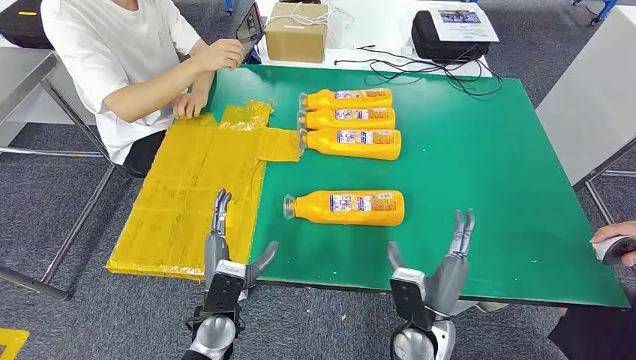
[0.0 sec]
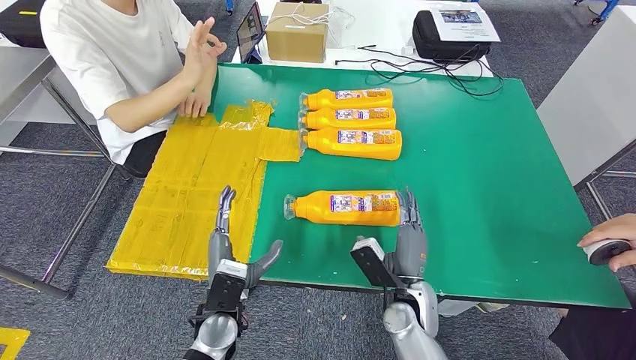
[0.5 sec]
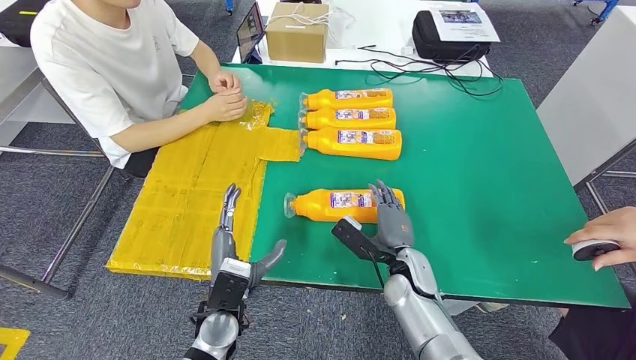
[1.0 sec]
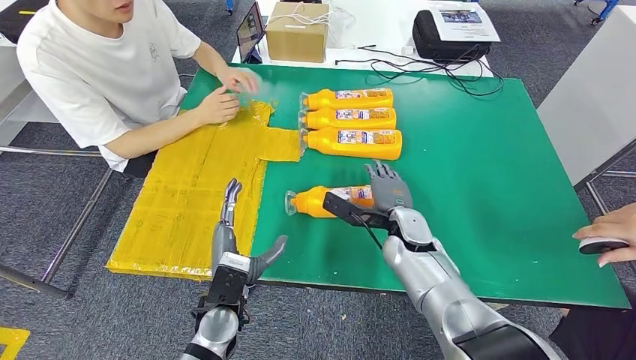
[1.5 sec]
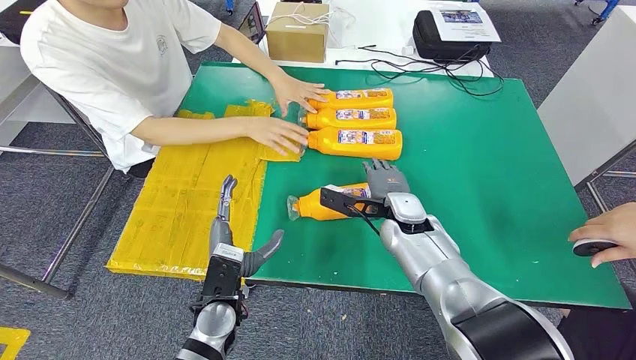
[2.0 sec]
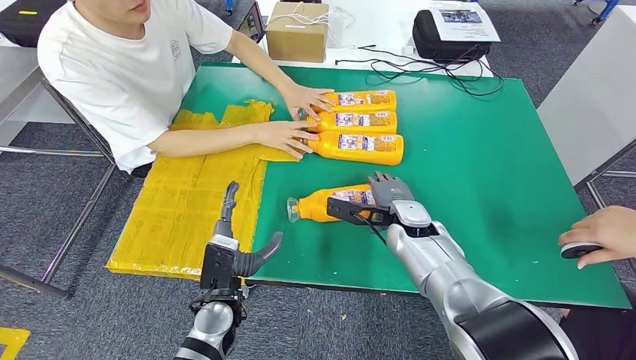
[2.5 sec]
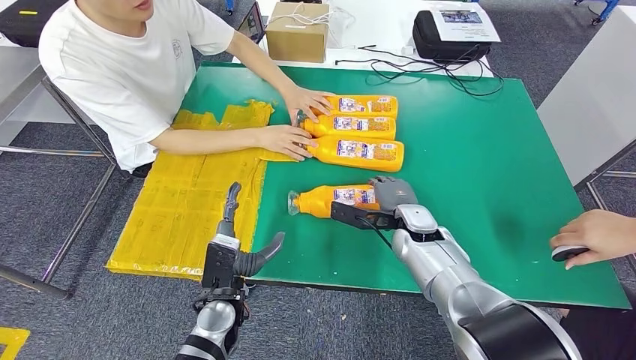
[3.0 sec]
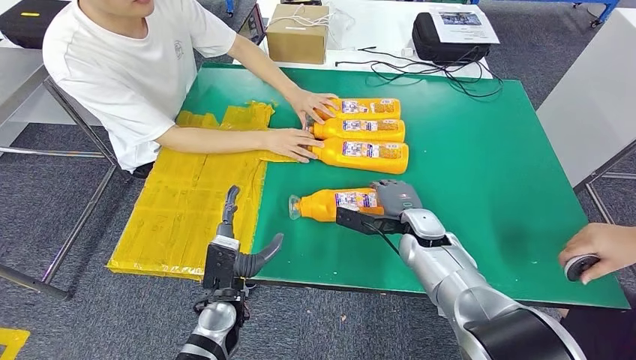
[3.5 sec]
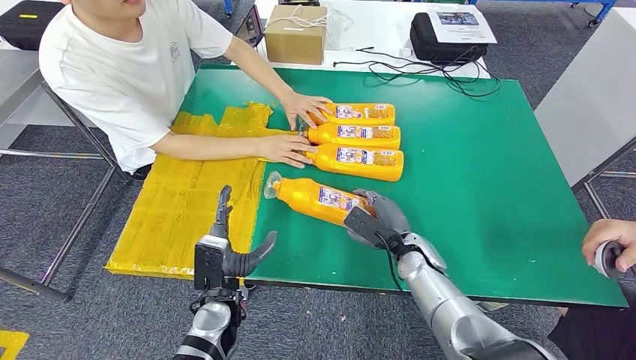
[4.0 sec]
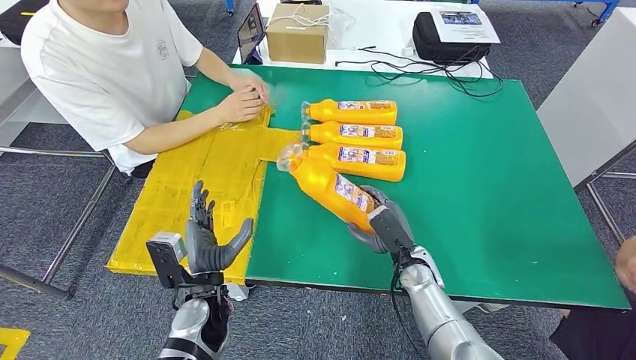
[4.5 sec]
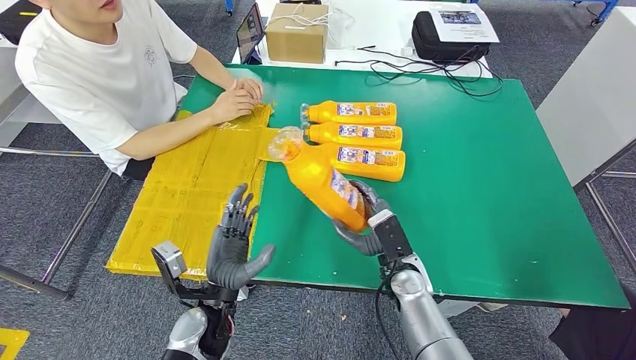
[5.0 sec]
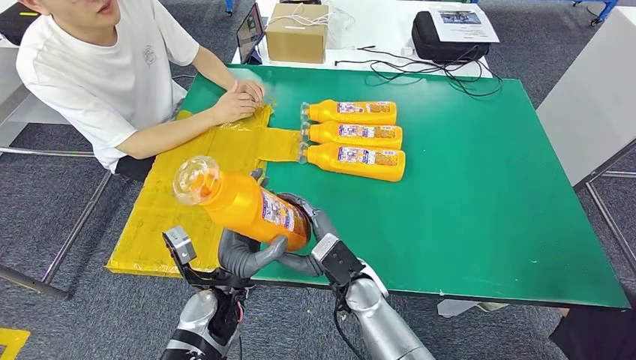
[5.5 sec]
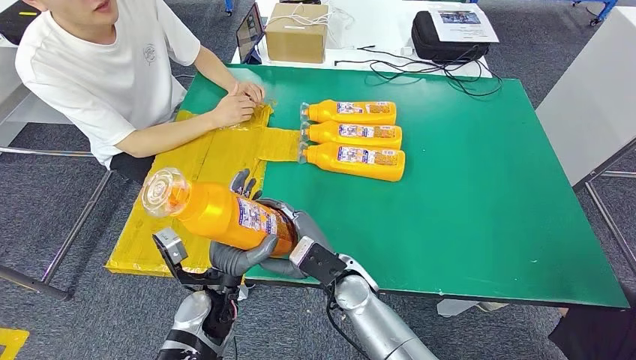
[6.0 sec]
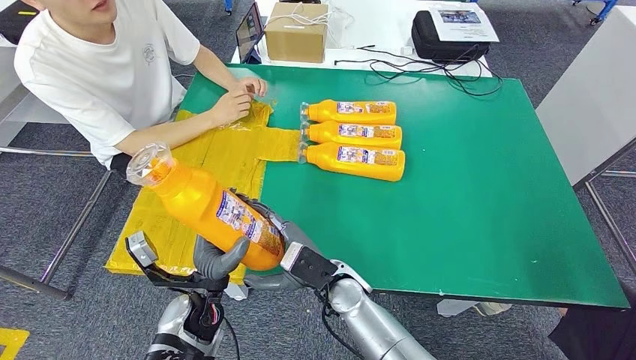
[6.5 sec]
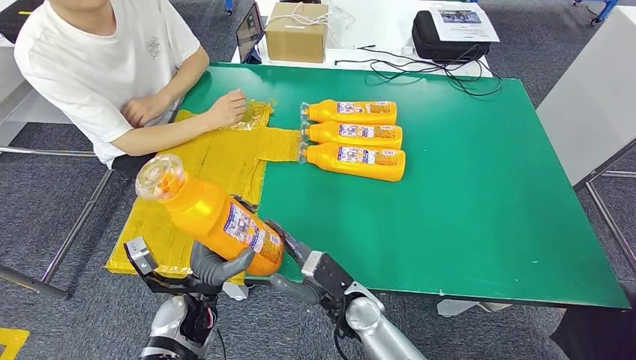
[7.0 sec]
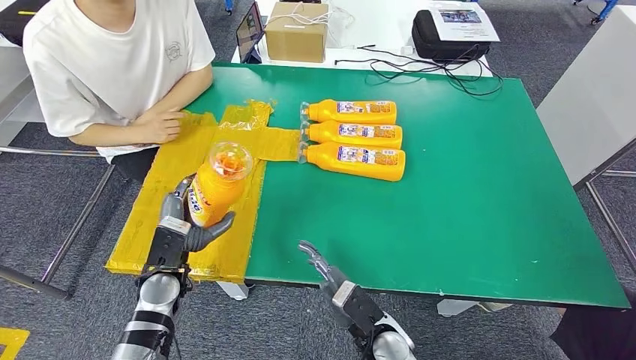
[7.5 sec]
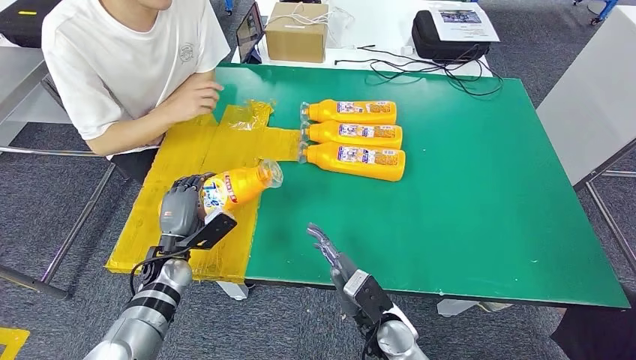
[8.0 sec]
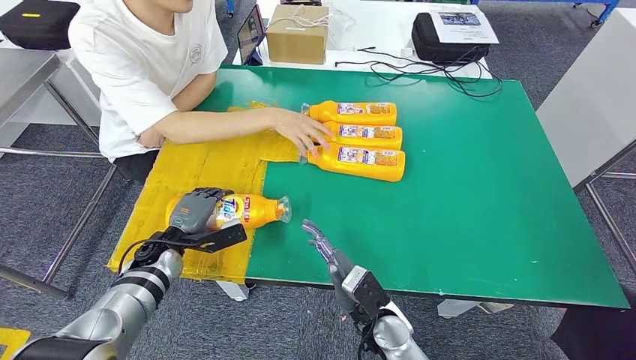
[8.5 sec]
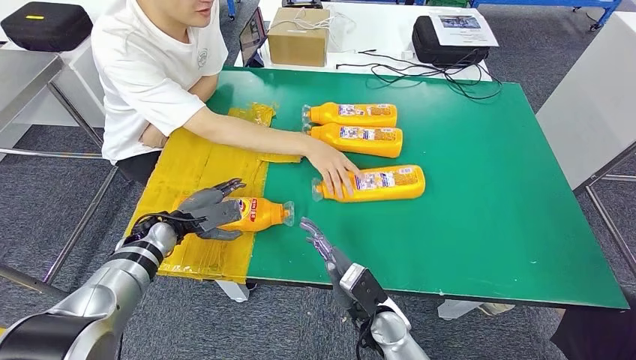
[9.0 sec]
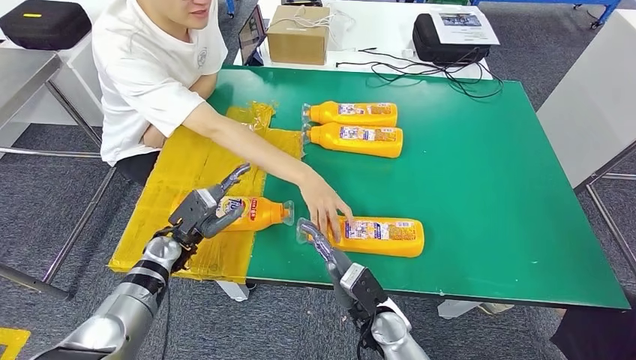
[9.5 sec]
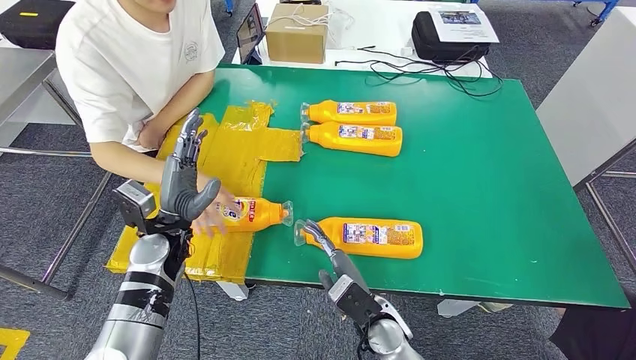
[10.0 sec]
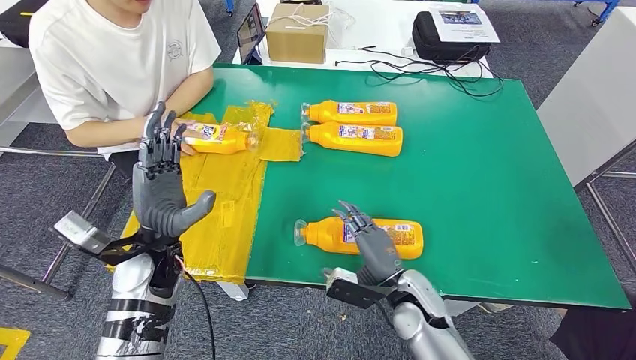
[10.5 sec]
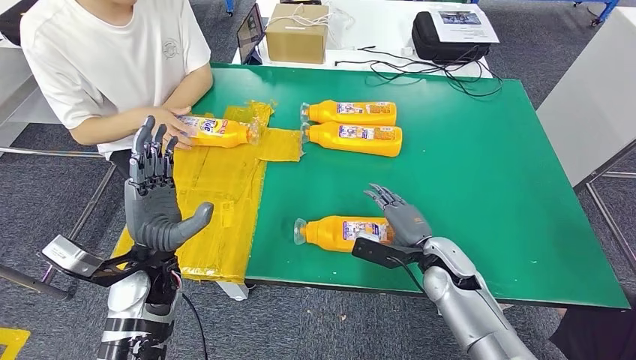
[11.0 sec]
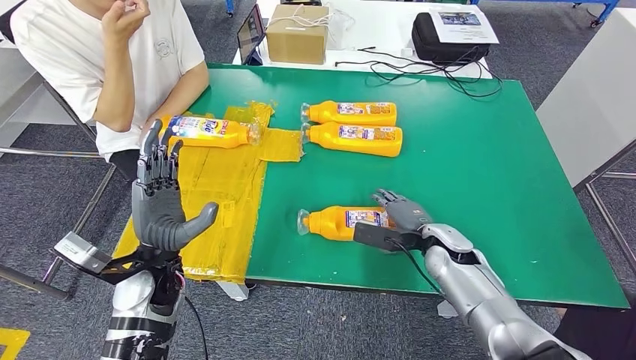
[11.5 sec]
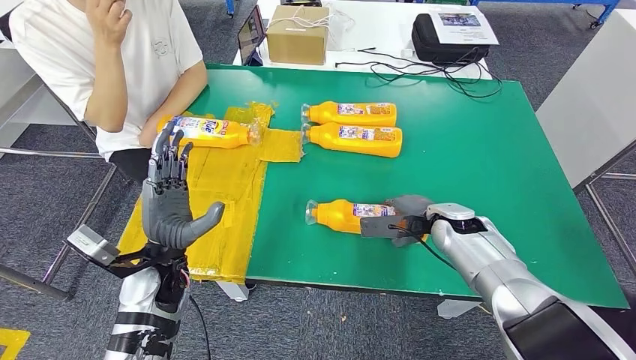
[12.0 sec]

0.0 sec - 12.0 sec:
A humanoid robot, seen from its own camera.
Step, 0.0 sec - 5.5 sec: Take the fast-moving consumer goods bottle from the table.
Step, 6.5 sec - 8.5 sec: Flip the fast-moving consumer goods bottle to the front side.
8.0 sec - 10.0 sec: The left hand is displaced upward by approximately 10 cm.

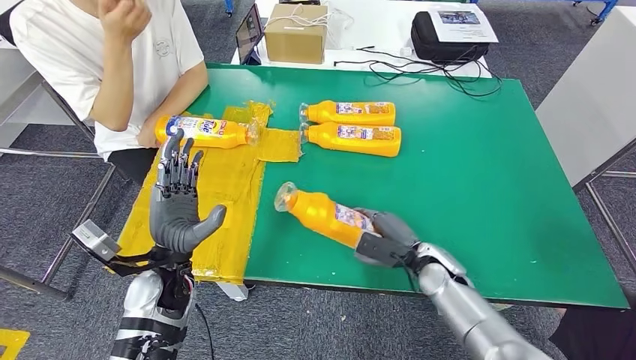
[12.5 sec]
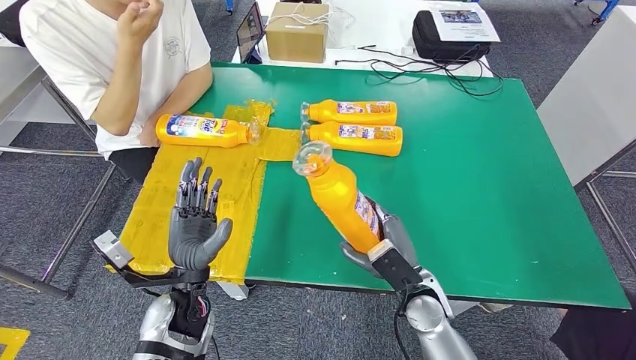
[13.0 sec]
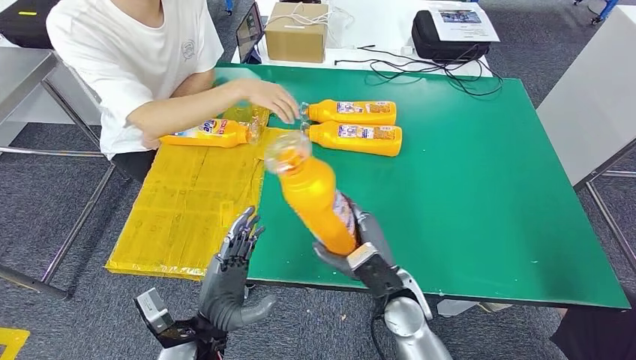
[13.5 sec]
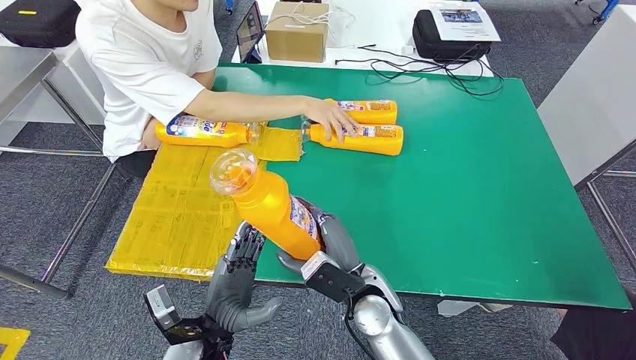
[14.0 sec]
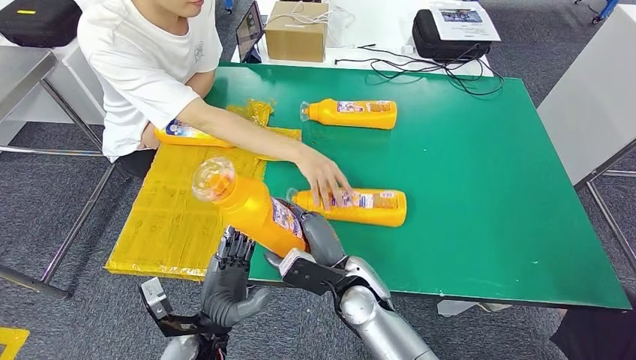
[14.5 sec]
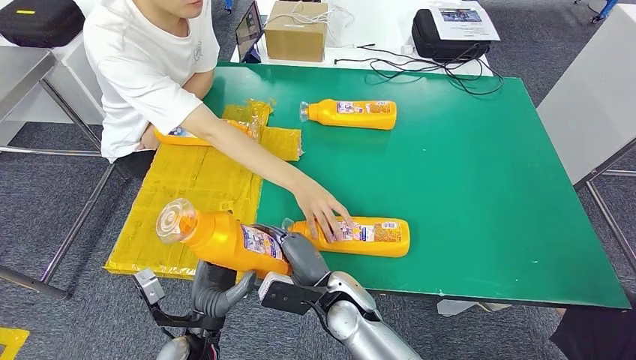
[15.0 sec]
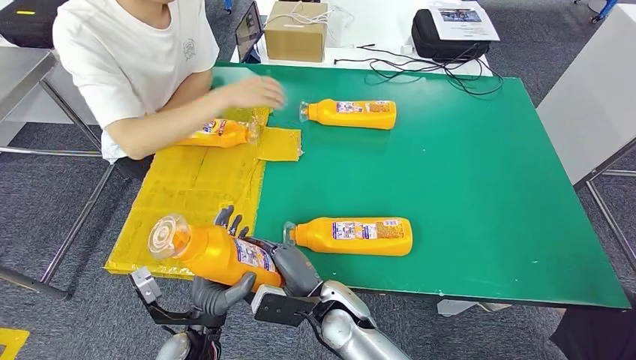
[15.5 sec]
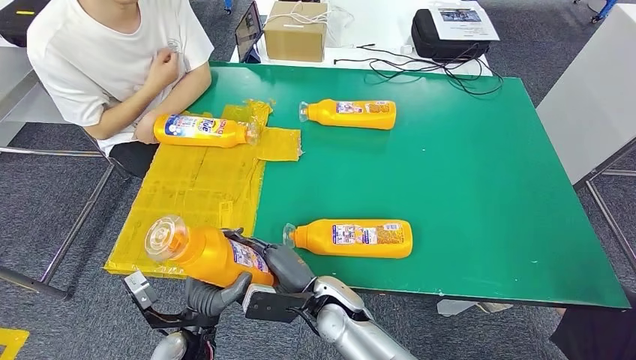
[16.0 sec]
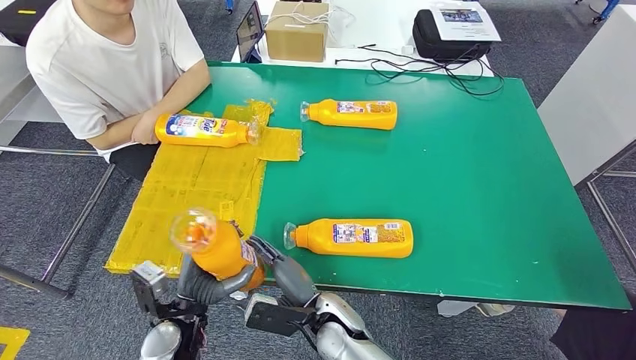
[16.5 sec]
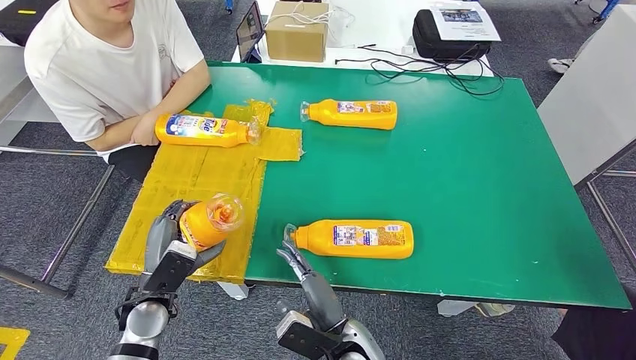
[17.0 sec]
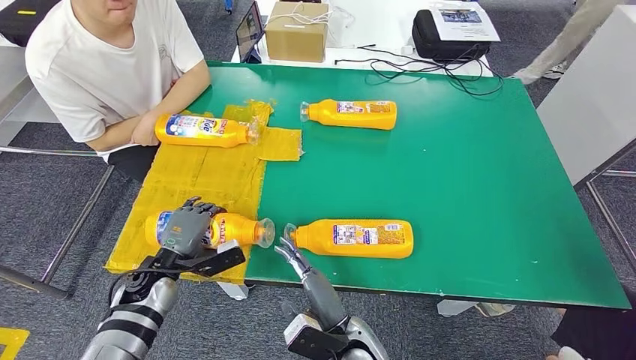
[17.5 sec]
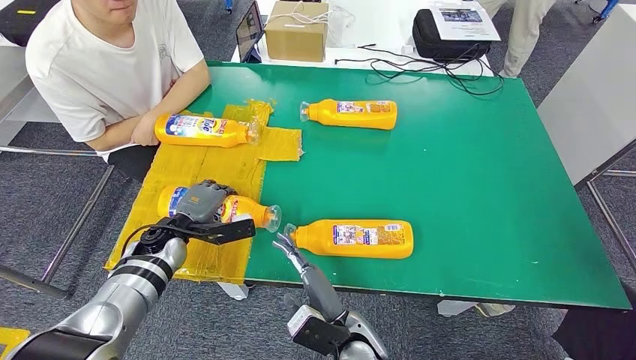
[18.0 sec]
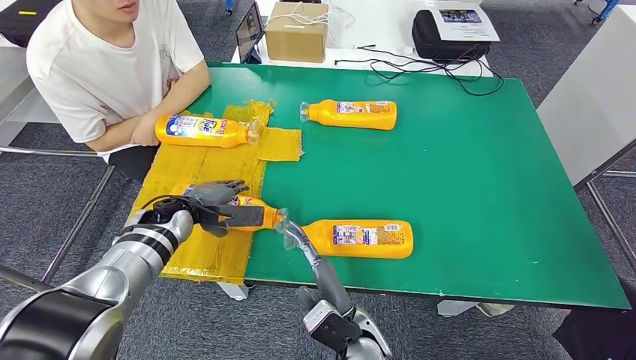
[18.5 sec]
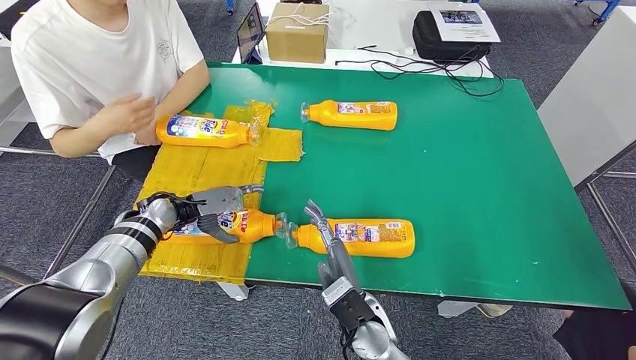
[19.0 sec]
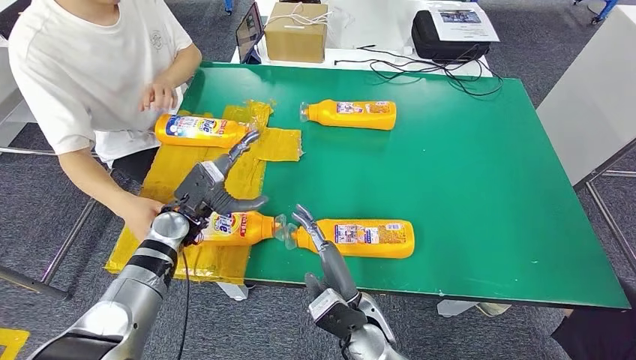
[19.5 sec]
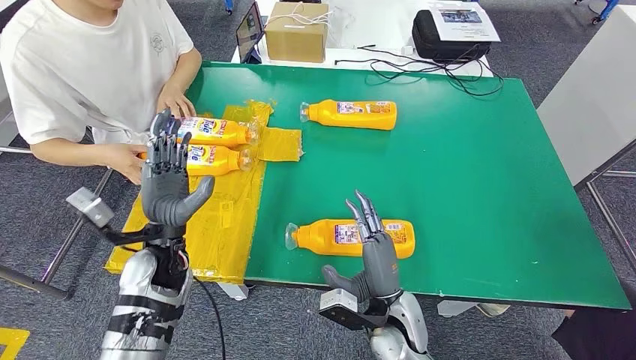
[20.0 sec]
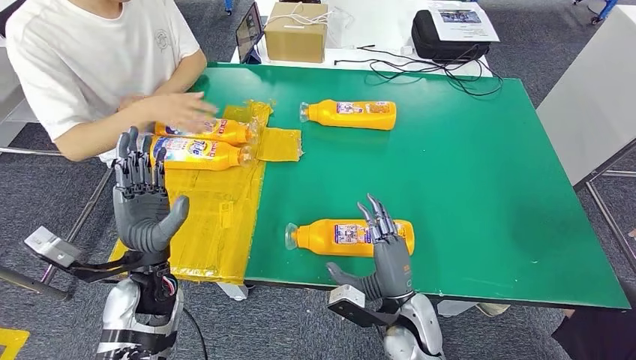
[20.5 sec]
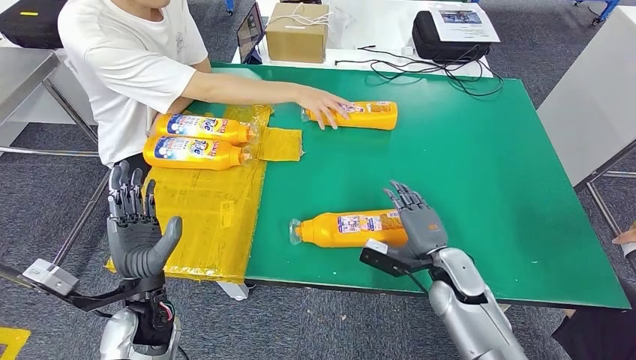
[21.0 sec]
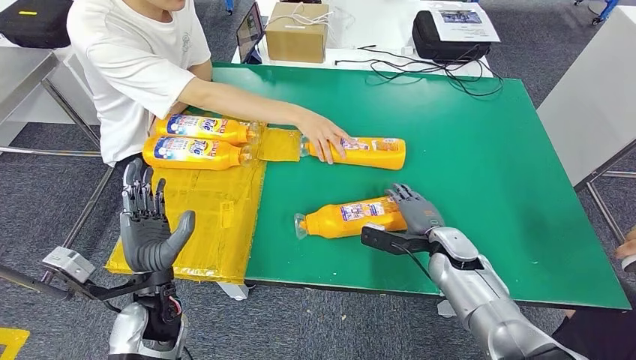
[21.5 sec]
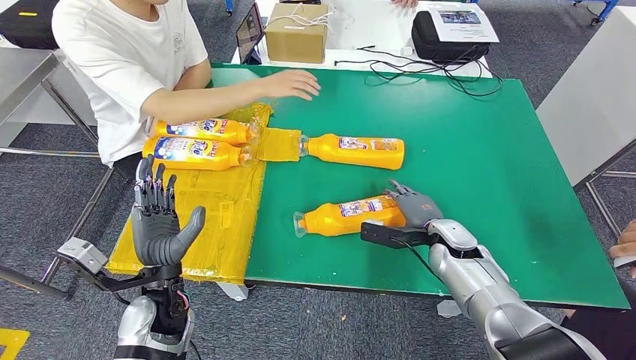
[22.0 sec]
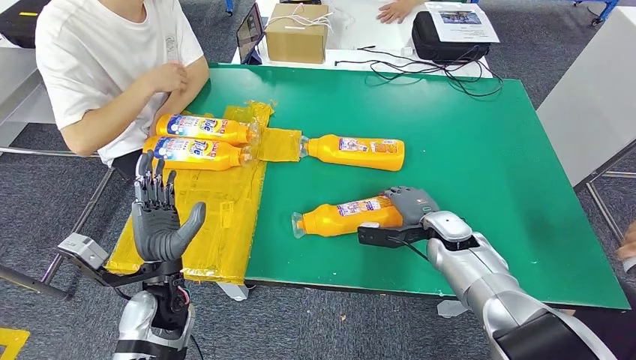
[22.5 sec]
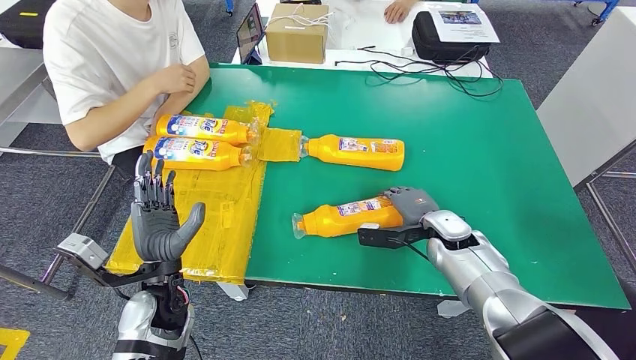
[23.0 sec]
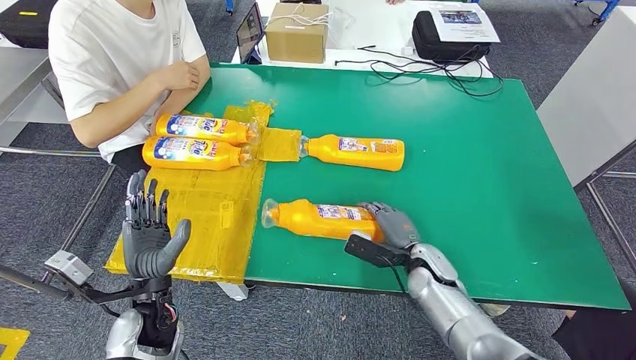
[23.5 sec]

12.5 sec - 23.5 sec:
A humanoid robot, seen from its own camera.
Step, 13.5 sec - 18.0 sec: Flip the fast-moving consumer goods bottle to the front side.
16.0 sec - 18.0 sec: The left hand is displaced forward and to the left by some 20 cm, while the right hand goes some 5 cm backward.
21.5 sec - 23.5 sec: The right hand moves roughly 5 cm.
